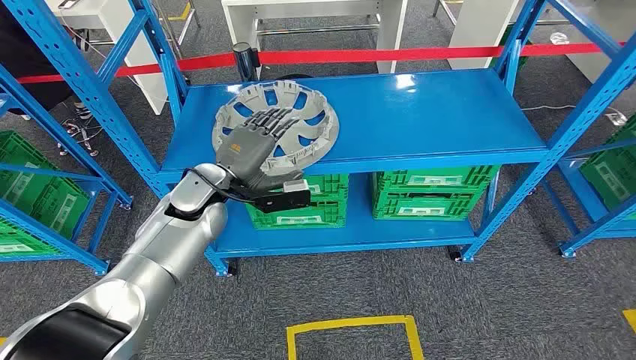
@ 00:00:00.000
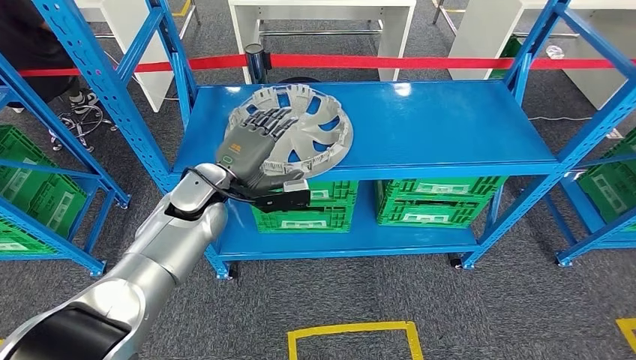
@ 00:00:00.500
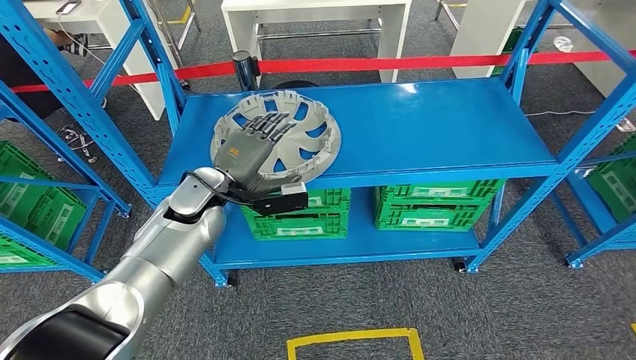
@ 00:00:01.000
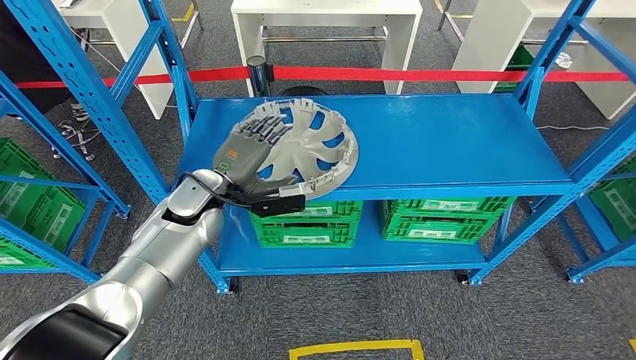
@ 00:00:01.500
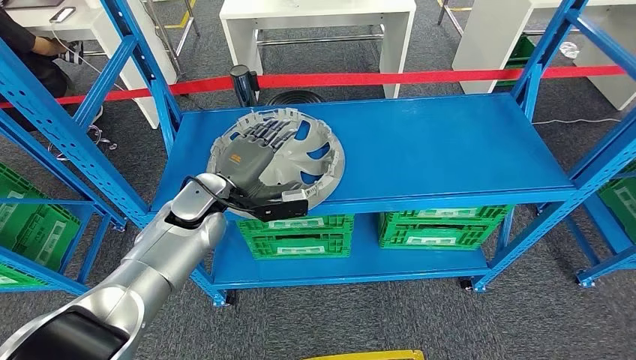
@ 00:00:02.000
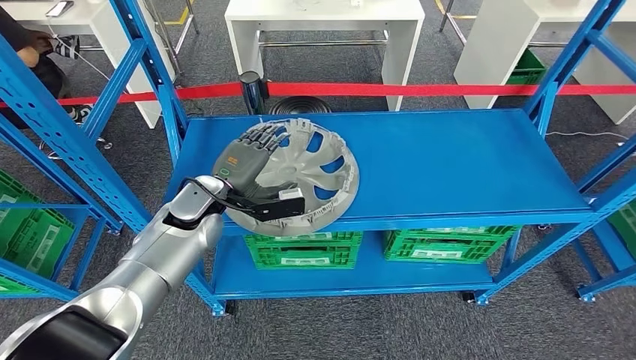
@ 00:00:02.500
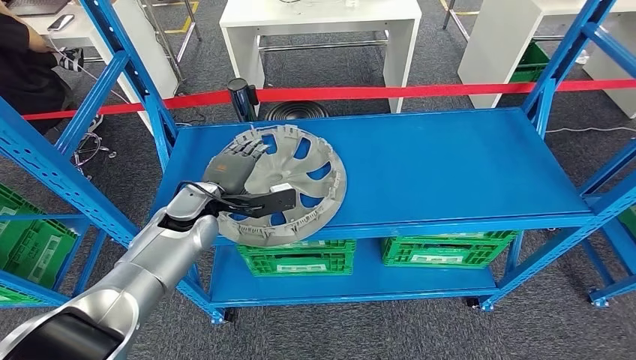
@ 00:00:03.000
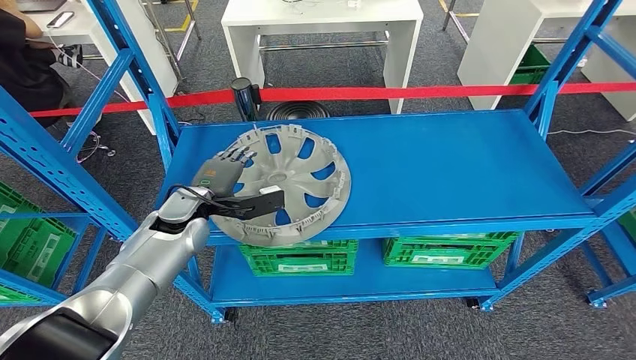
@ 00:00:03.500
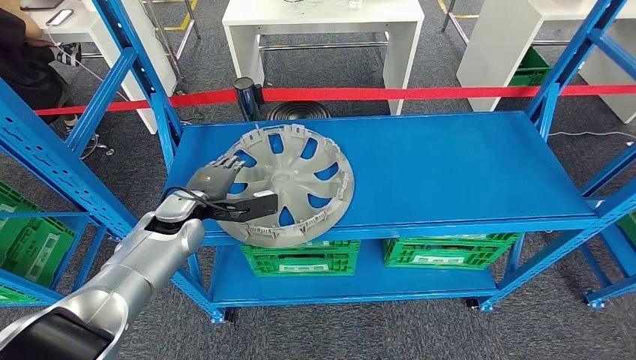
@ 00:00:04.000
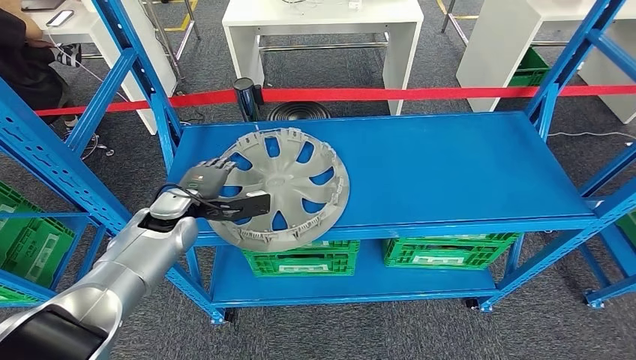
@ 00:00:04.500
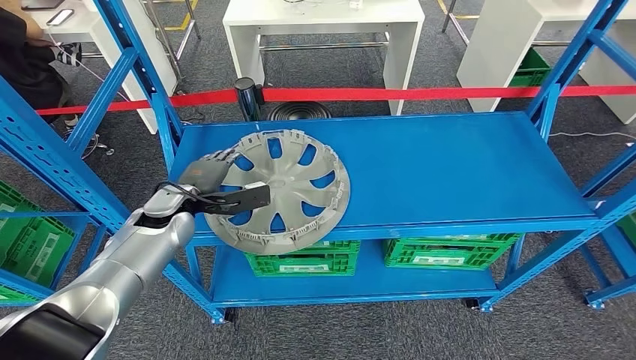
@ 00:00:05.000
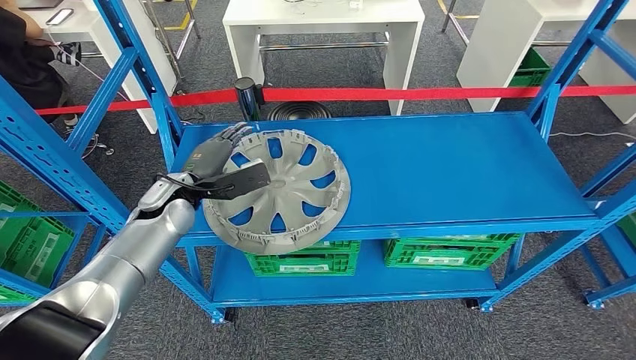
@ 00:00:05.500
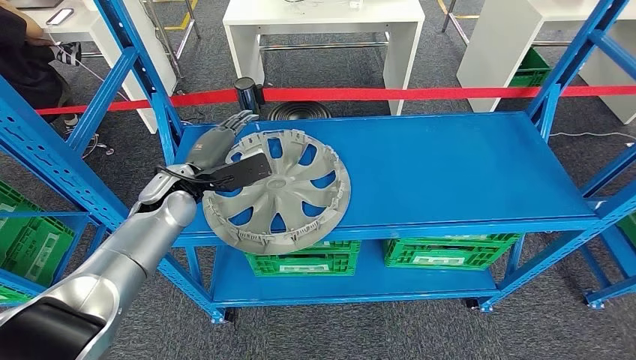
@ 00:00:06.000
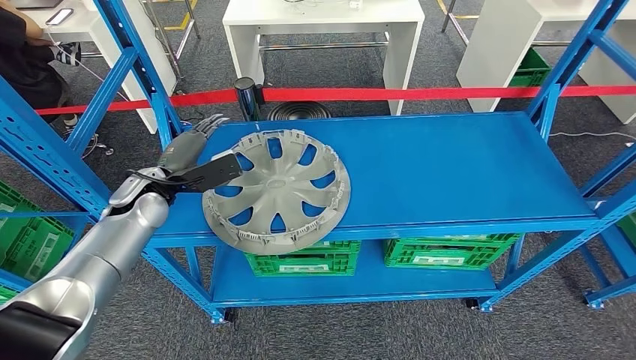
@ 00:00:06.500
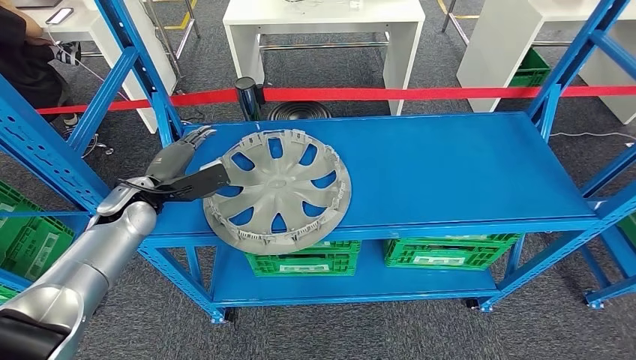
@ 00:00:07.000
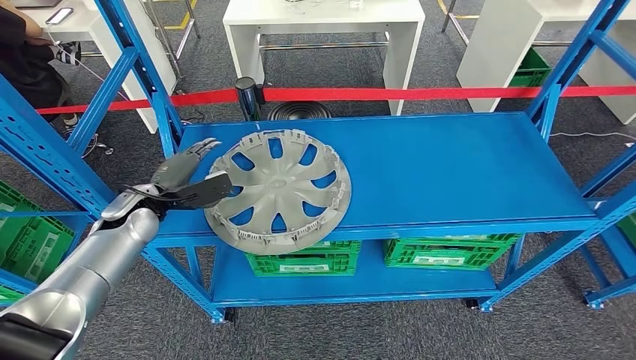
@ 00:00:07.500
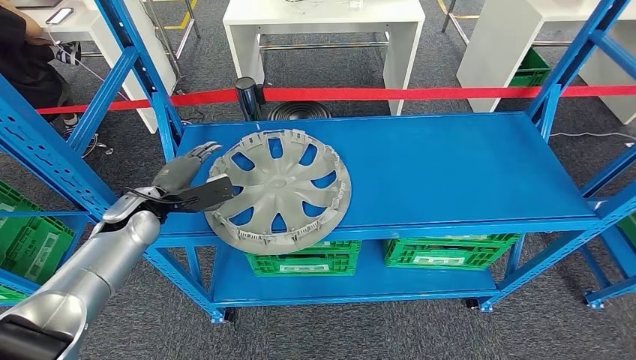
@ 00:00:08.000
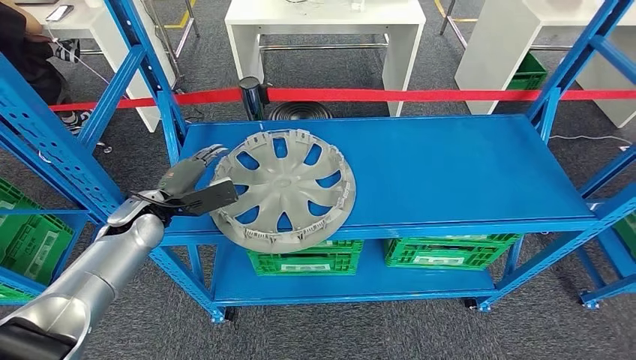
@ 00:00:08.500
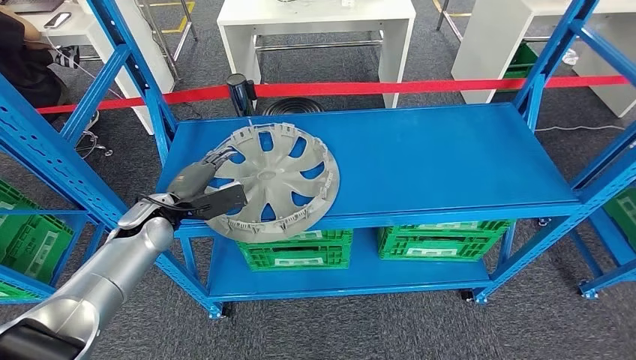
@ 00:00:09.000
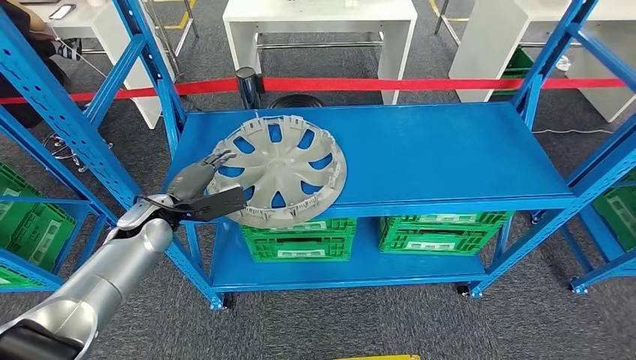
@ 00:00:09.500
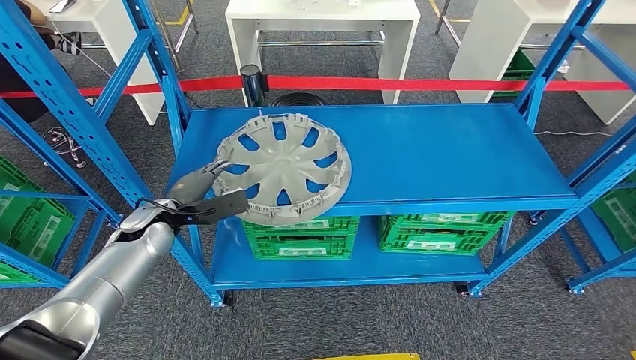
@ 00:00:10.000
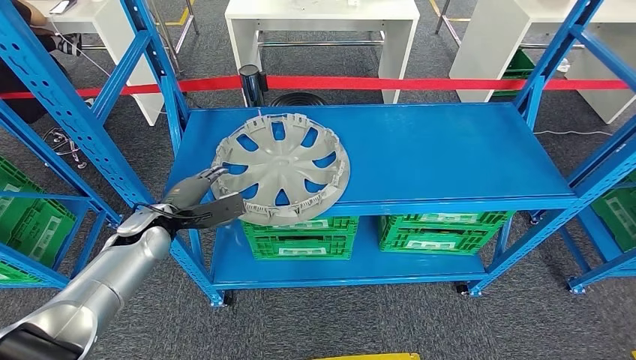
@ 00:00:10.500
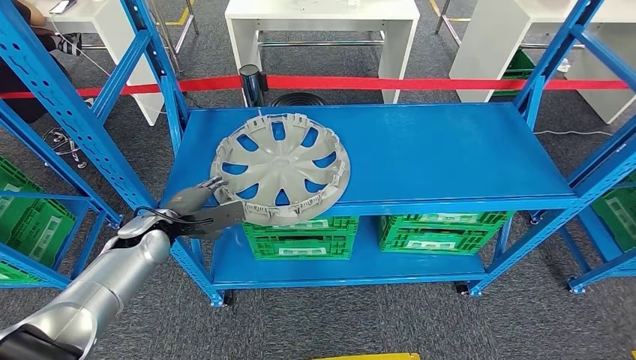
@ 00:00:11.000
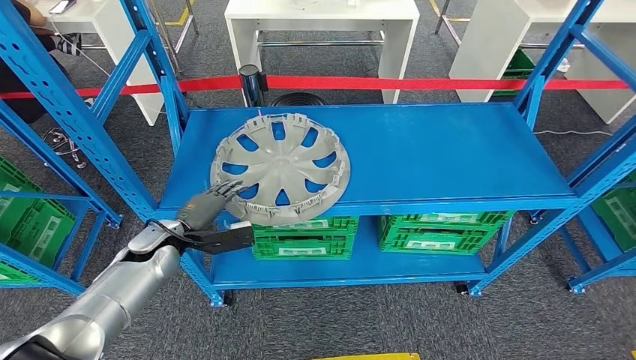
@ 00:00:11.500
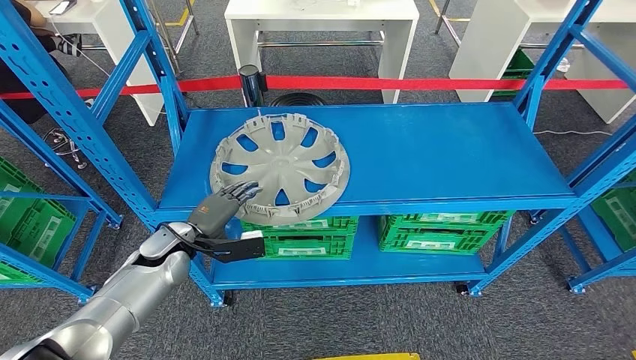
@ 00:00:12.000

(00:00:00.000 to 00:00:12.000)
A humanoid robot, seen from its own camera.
00:00:06.000 - 00:00:08.000: The left hand moves to the left, approximately 10 cm.
00:00:10.000 - 00:00:12.000: There are only small adjustments of the hands.

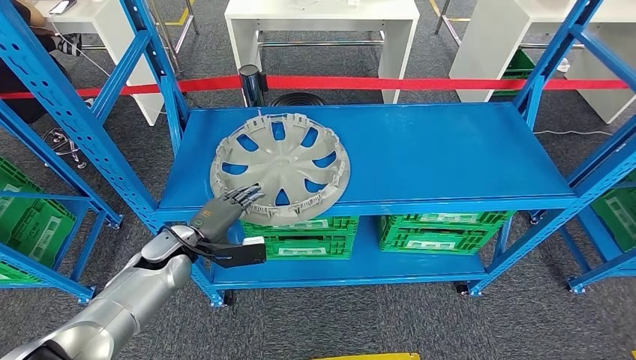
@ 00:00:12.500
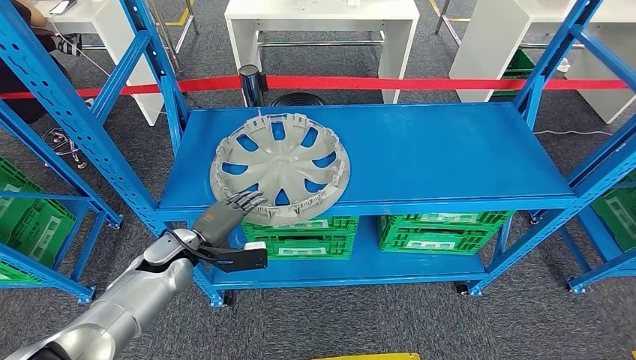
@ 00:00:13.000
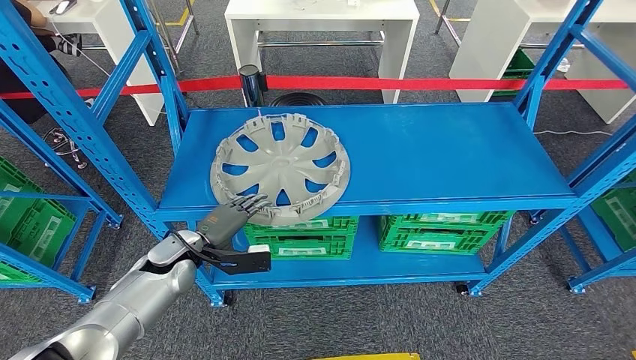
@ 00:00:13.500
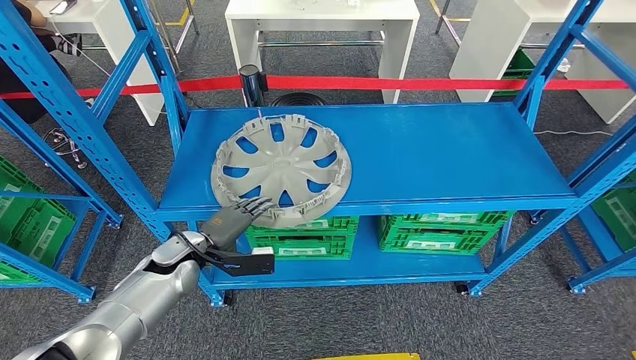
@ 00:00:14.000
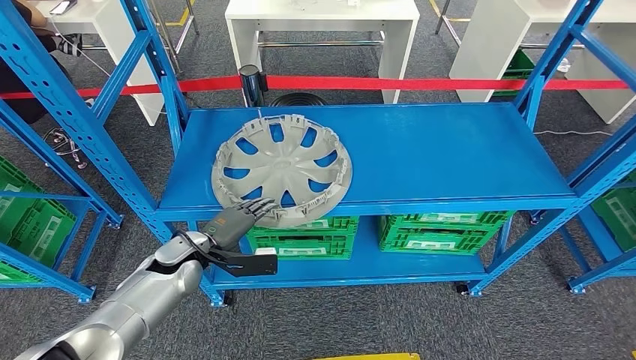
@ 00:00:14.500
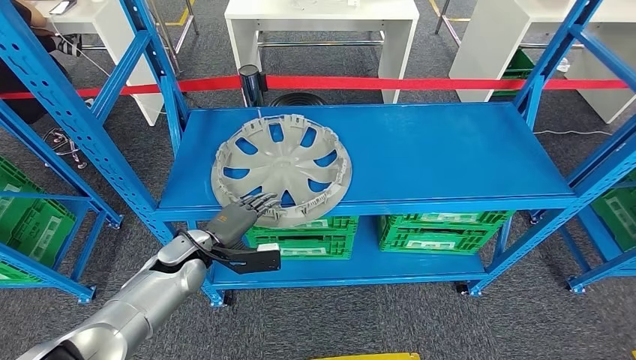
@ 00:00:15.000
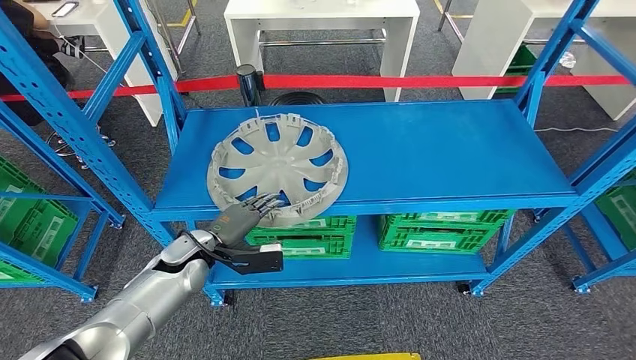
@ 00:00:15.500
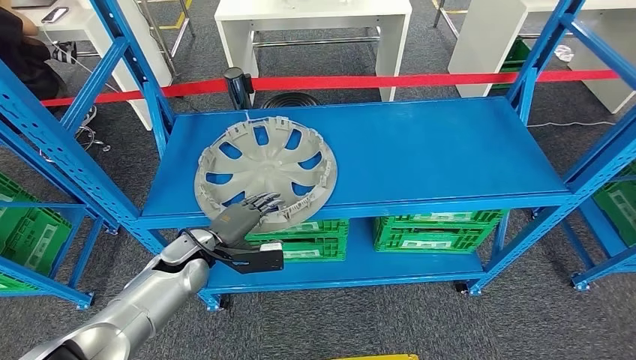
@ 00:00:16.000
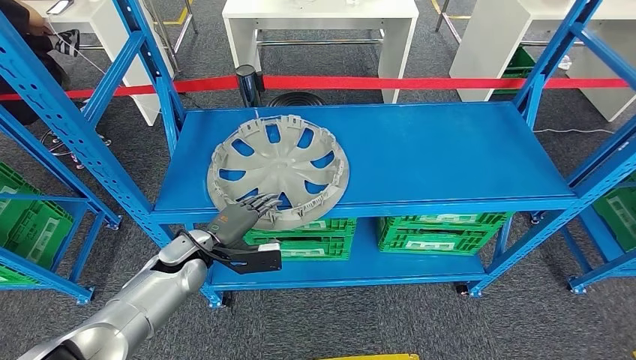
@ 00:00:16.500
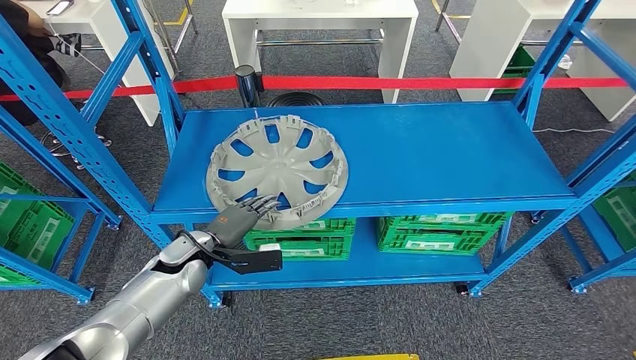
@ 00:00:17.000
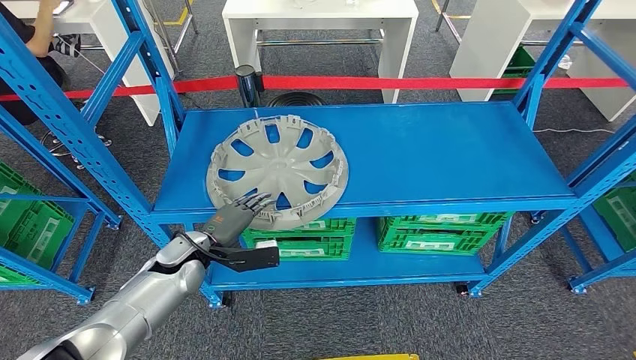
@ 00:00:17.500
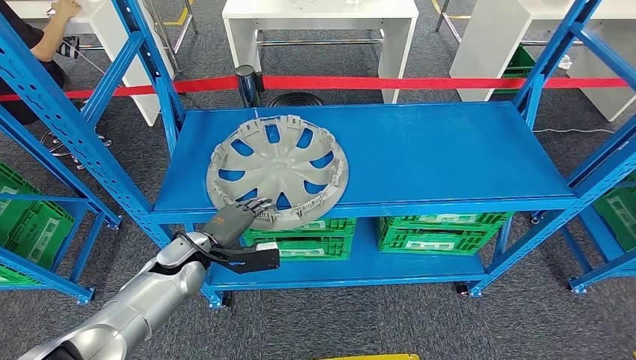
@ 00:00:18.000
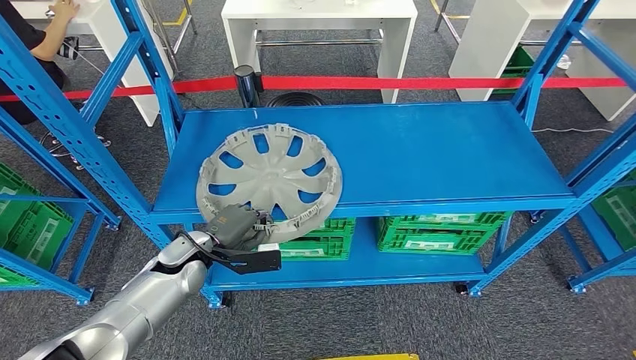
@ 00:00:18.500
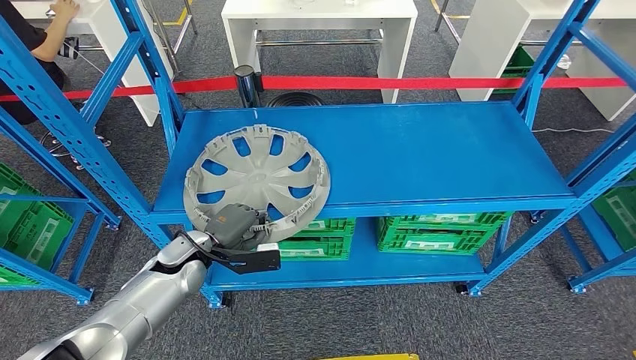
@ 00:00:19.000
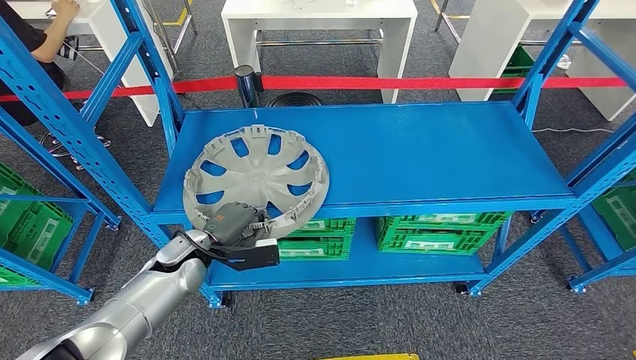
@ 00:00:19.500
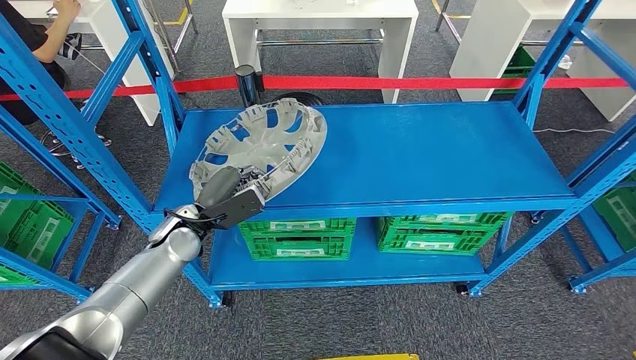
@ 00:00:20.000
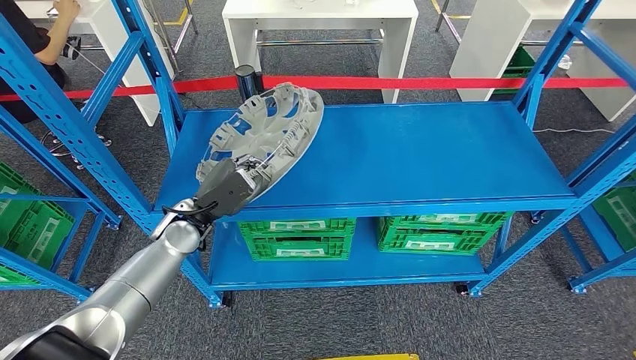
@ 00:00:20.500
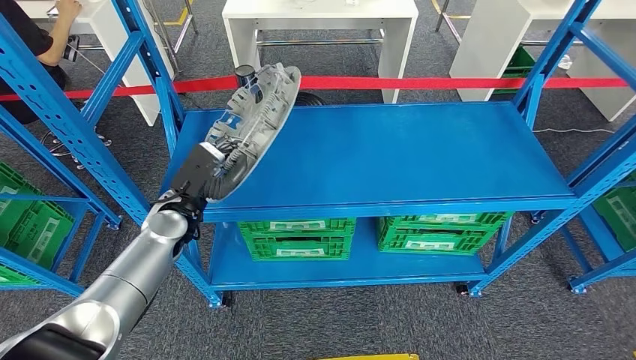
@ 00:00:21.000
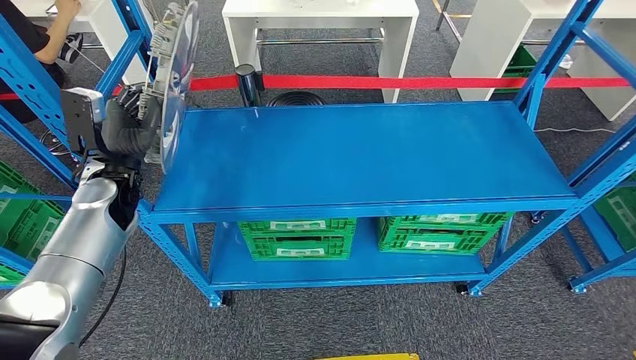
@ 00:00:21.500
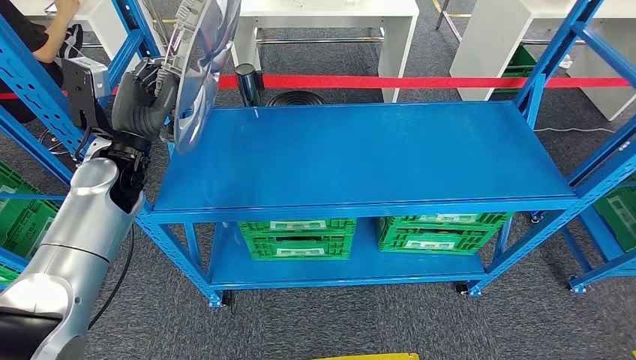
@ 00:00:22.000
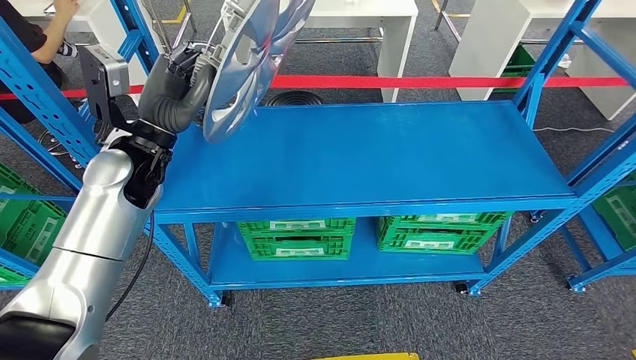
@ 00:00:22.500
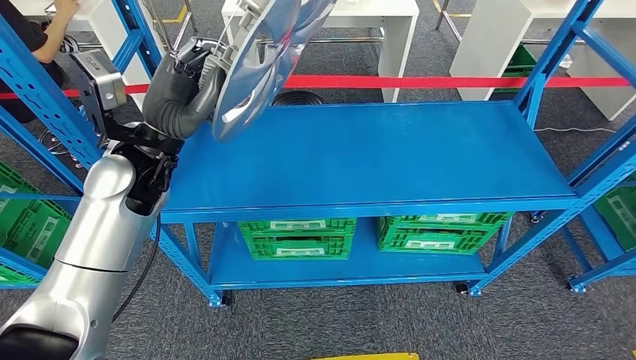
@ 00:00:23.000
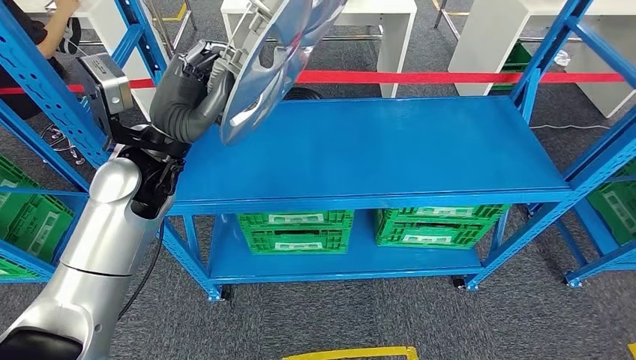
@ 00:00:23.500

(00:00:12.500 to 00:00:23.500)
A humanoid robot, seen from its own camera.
Step, 00:00:12.500 - 00:00:22.000: Pick up the small component from the shelf.
00:00:12.500 - 00:00:14.500: There are only small adjustments of the hands.
00:00:18.000 - 00:00:20.000: The left hand shifts by roughly 5 cm.
00:00:20.000 - 00:00:21.500: The left hand is displaced to the left and upward by roughly 10 cm.
